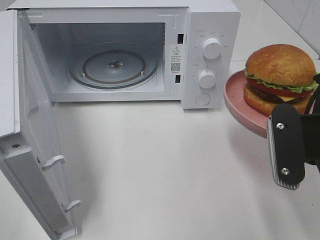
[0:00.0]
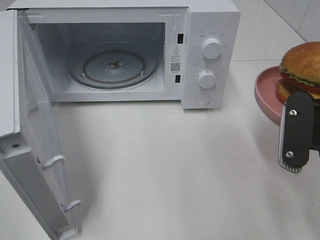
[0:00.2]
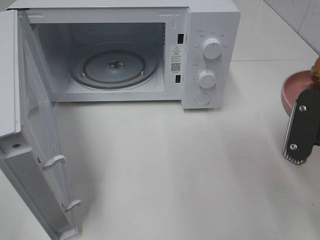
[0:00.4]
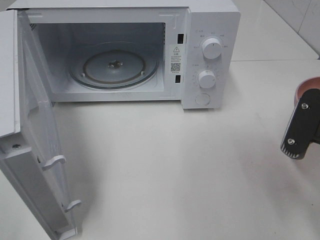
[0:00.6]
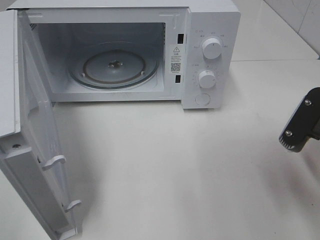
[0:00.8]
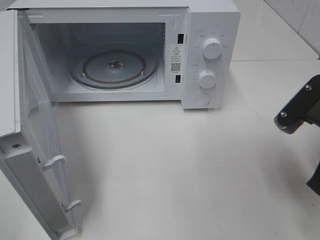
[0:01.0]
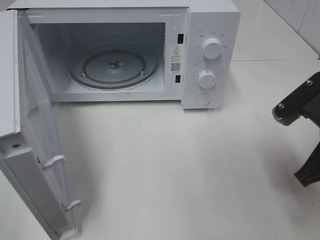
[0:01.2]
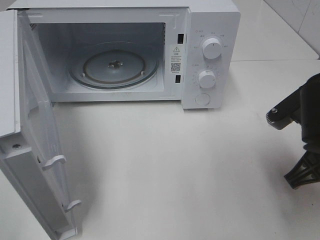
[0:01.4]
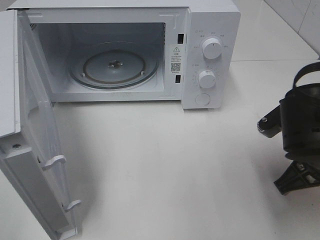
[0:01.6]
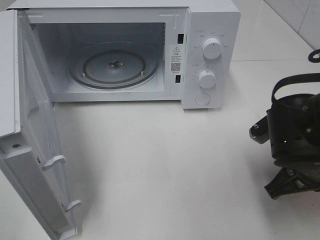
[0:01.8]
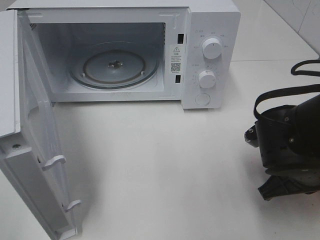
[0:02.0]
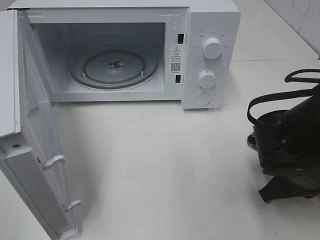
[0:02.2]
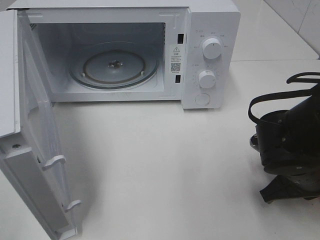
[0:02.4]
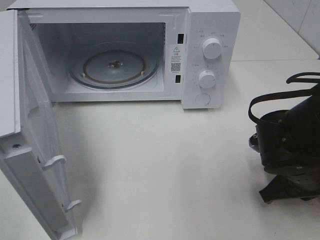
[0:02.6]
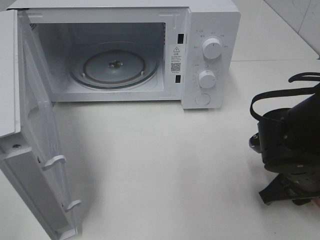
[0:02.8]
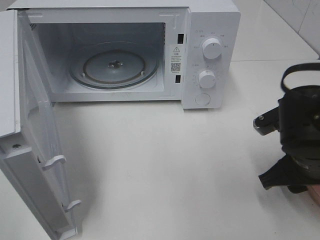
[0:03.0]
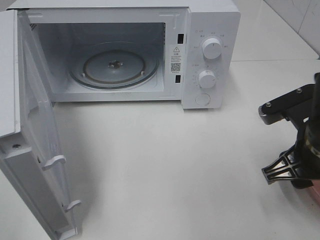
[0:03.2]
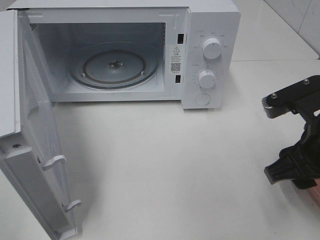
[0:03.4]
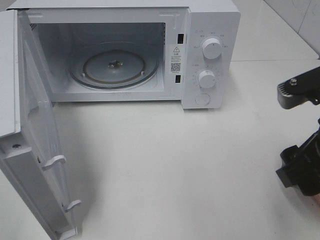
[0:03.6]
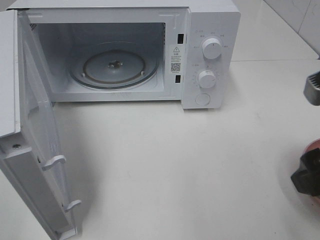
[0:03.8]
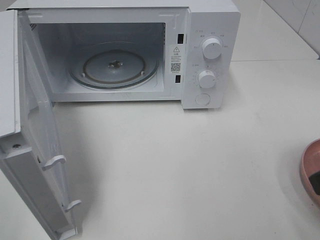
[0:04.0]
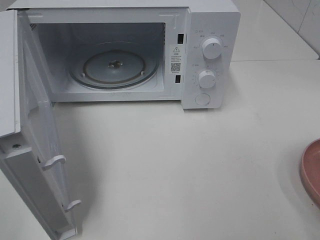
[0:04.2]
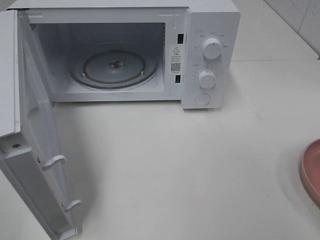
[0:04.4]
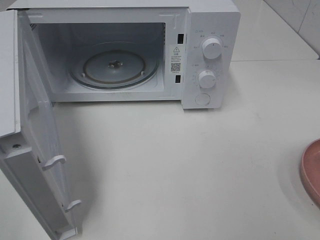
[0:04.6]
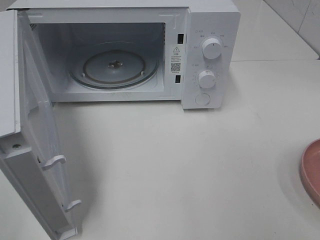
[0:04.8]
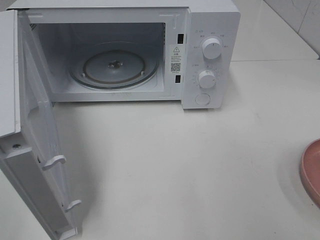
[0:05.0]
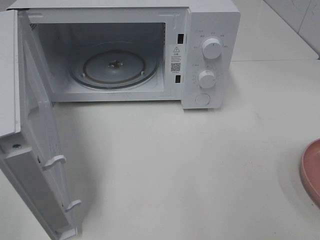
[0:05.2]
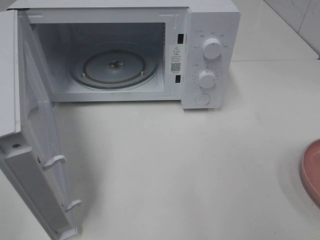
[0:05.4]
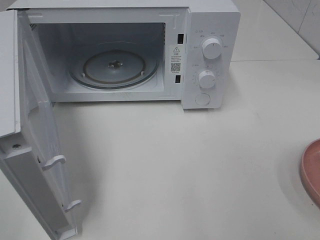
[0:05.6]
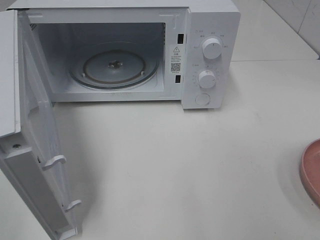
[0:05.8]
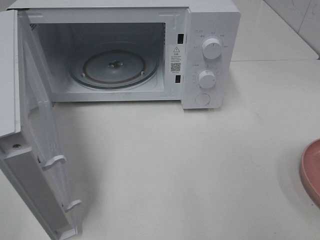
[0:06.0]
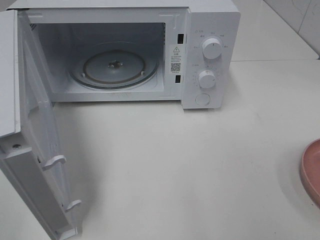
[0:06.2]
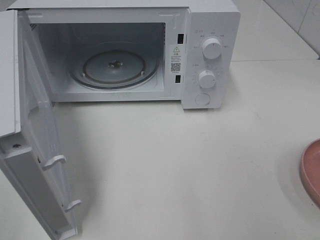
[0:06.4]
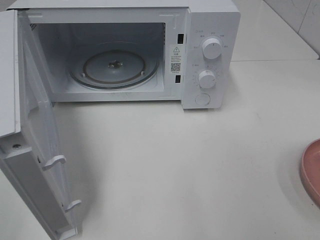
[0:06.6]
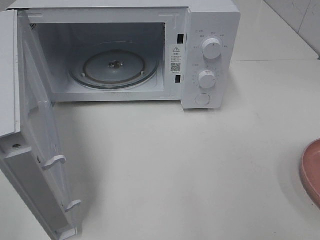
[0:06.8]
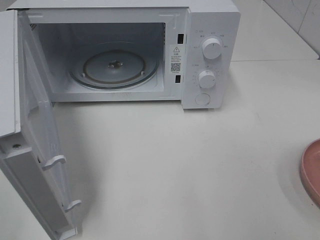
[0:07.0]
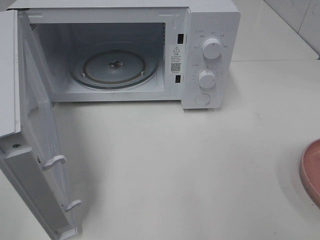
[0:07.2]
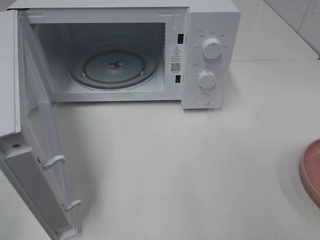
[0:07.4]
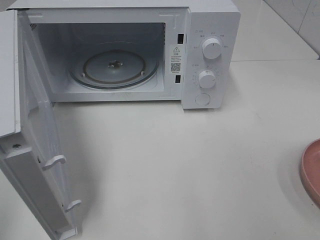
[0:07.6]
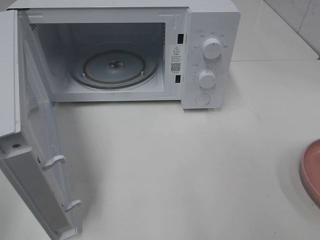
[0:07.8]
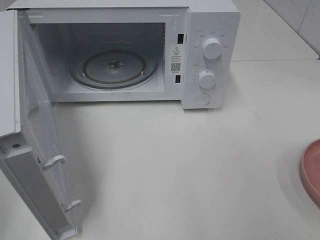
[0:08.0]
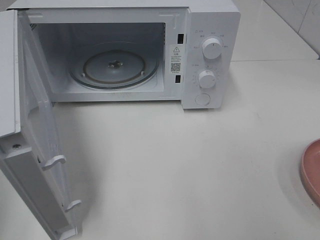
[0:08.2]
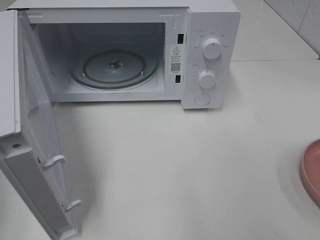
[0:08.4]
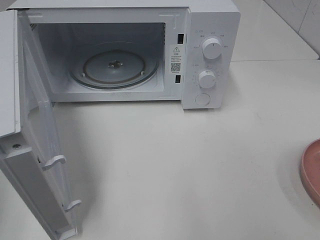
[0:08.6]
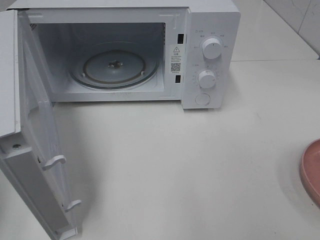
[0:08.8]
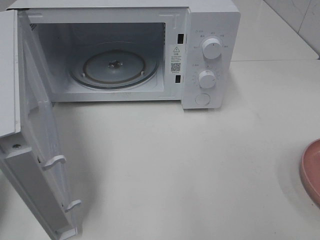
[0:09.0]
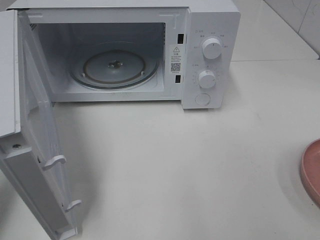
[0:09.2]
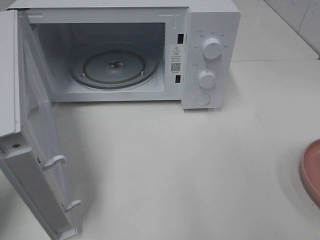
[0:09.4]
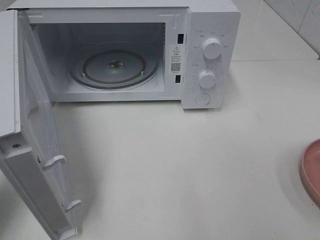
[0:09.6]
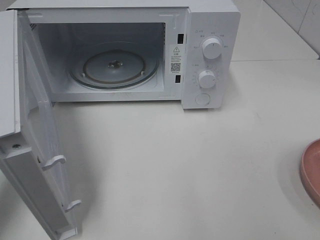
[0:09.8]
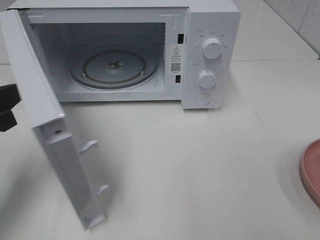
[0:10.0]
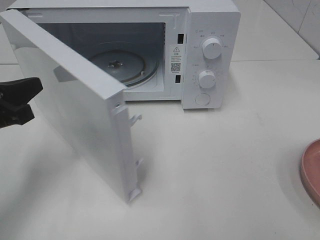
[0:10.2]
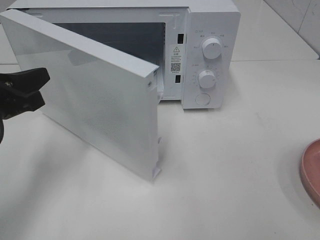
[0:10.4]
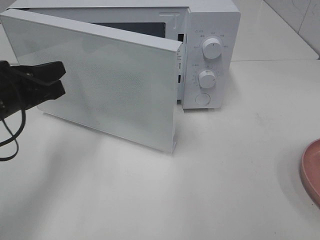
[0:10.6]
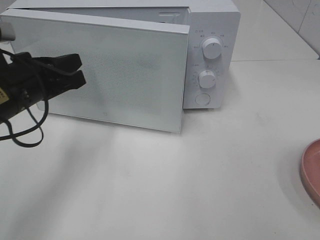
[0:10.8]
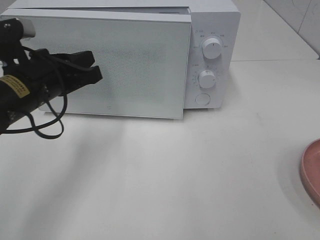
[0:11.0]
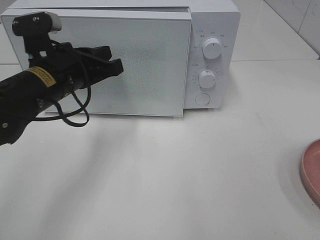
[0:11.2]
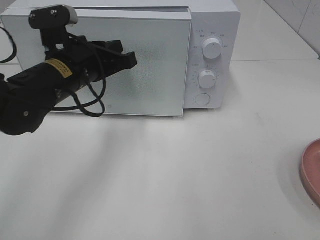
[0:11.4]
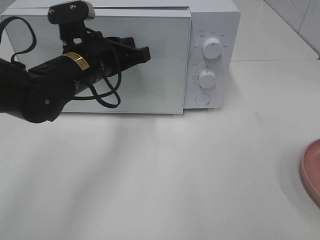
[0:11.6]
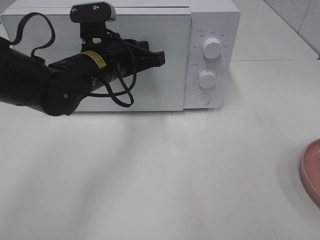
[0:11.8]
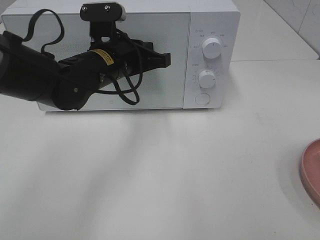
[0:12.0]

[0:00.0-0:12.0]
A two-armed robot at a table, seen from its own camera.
Task of the whole recording: Heat the burger.
Step, 0:00.0 to 0:02.8: Right hand: place the plate on the table.
0:00.0 to 0:01.6: The right gripper goes approximately 5 cm downward.
0:01.6 to 0:03.0: The right gripper opens up.
0:03.0 to 0:04.4: The right gripper heads upward, backward and to the right, covering some 20 cm.
0:09.0 to 0:10.4: The left gripper is displaced forward and to the right by roughly 10 cm.
0:10.4 to 0:12.0: The left gripper goes approximately 20 cm to the right and forward.

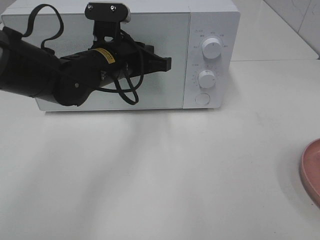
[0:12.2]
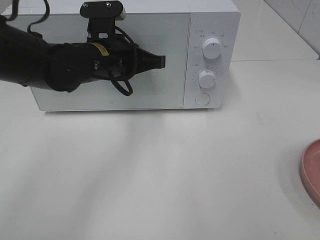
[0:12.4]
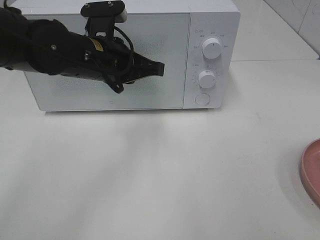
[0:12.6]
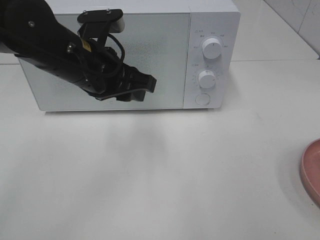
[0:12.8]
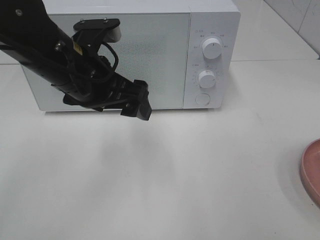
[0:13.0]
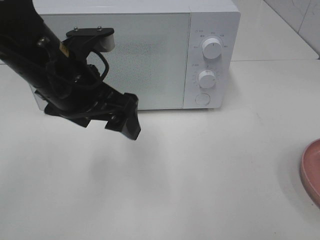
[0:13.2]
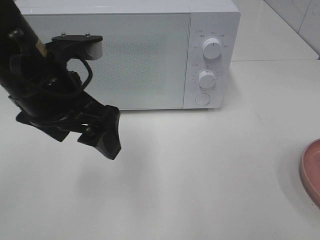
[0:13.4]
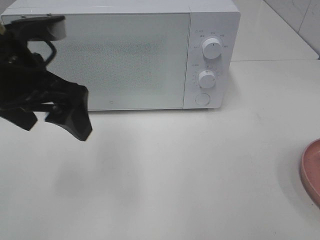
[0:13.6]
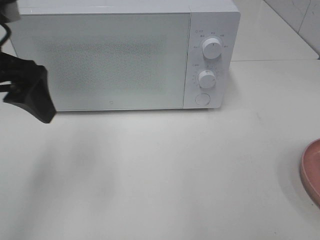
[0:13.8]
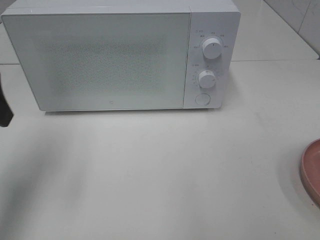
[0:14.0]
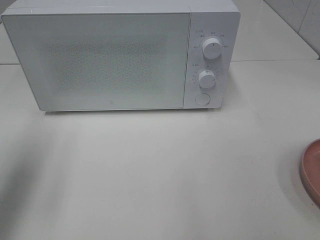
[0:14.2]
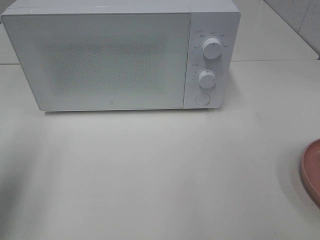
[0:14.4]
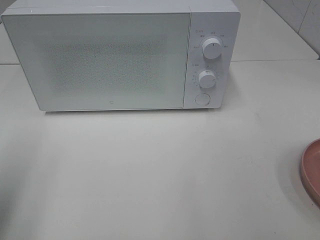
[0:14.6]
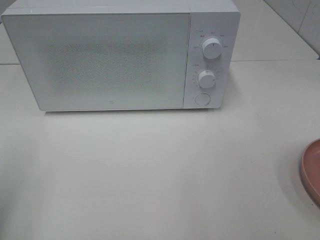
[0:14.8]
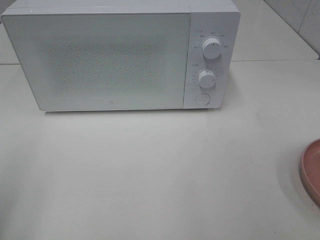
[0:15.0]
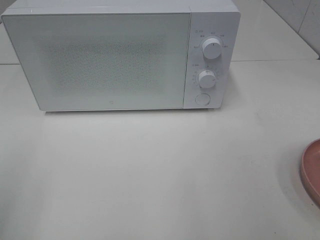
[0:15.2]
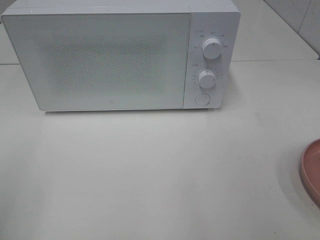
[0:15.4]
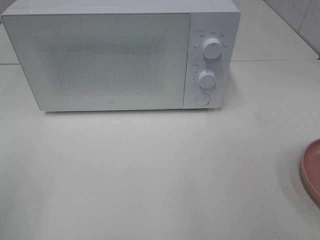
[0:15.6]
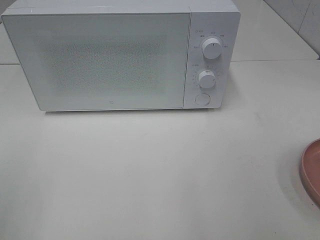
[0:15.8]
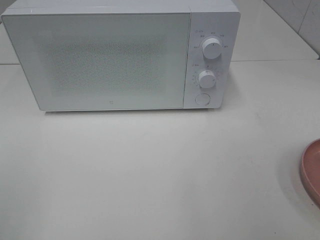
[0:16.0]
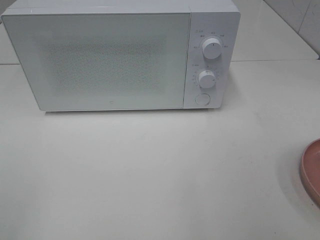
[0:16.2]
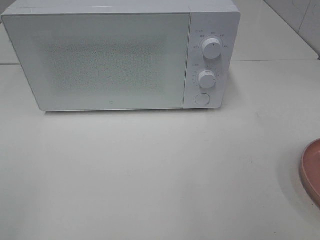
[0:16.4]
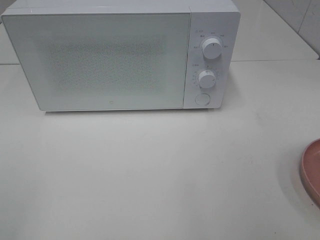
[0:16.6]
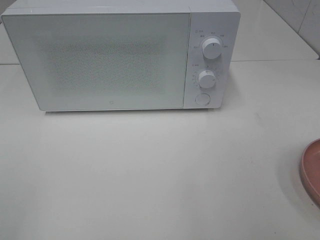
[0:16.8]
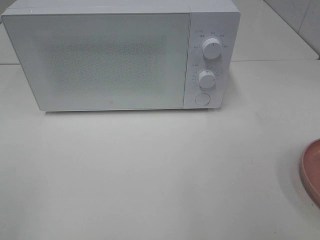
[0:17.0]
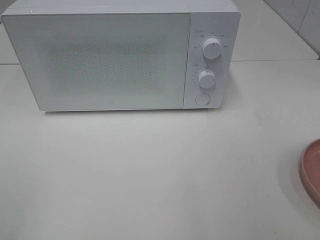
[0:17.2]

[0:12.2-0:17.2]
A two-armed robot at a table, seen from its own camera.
Task of the whole recording: Heat the burger.
0:12.2 to 0:13.8: The left gripper is displaced to the left, upward and backward by about 20 cm, and opens.
0:13.8 to 0:15.6: The left gripper goes approximately 20 cm backward and to the left.

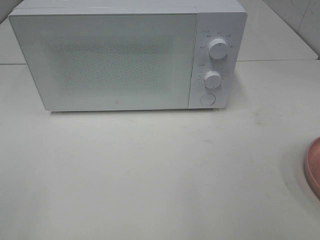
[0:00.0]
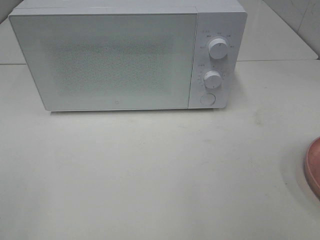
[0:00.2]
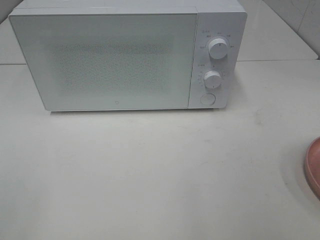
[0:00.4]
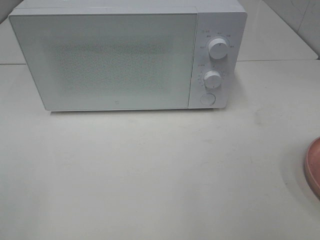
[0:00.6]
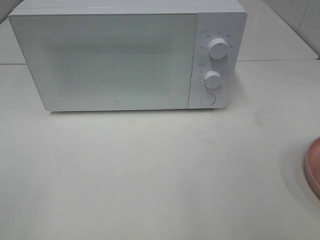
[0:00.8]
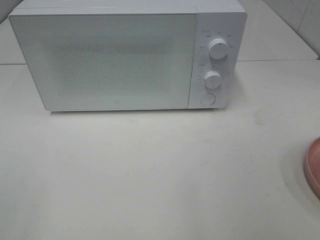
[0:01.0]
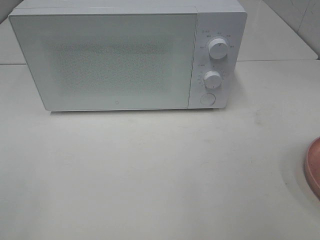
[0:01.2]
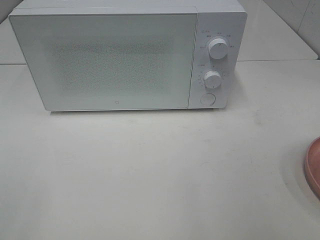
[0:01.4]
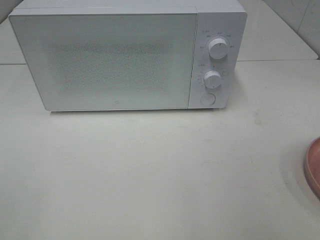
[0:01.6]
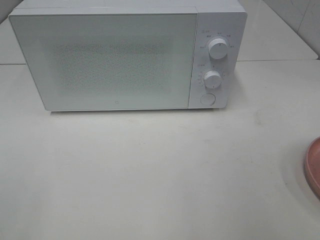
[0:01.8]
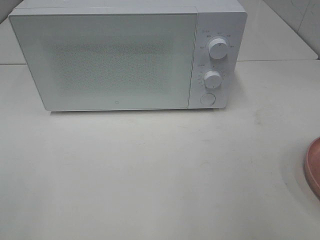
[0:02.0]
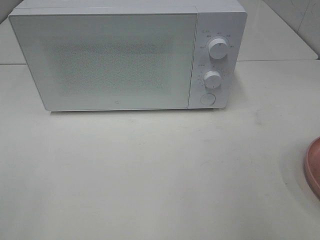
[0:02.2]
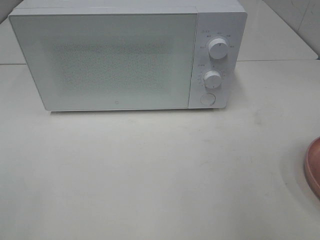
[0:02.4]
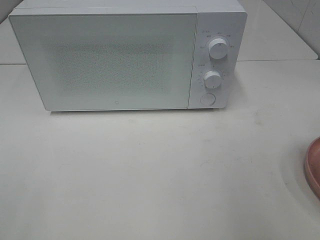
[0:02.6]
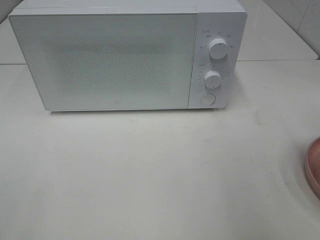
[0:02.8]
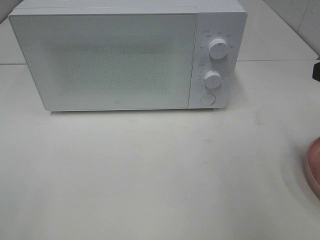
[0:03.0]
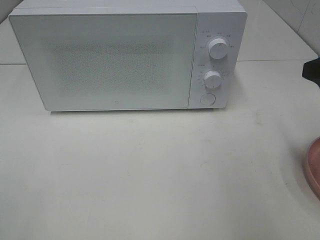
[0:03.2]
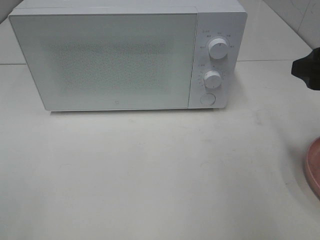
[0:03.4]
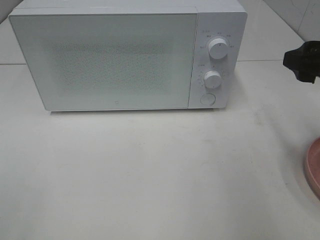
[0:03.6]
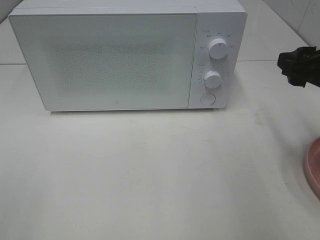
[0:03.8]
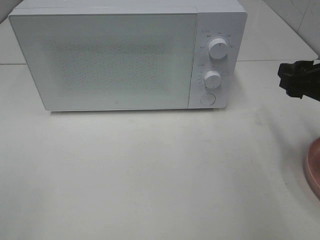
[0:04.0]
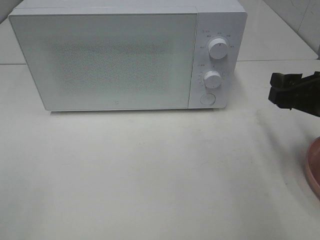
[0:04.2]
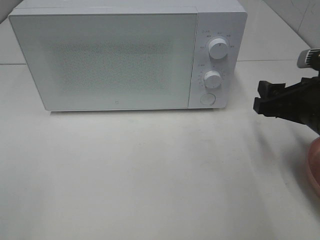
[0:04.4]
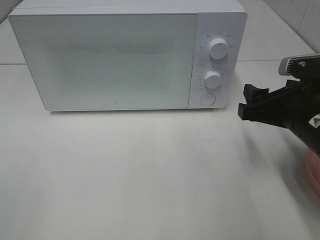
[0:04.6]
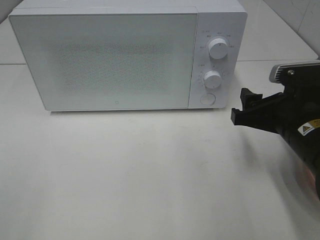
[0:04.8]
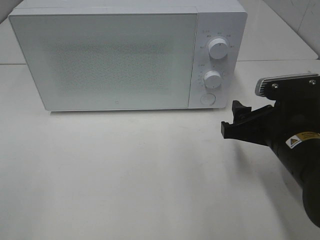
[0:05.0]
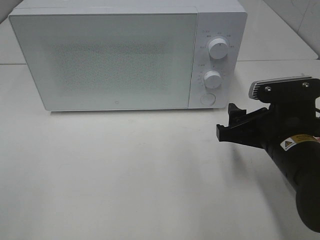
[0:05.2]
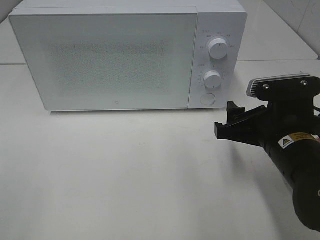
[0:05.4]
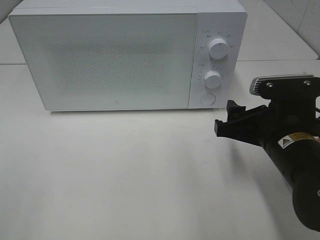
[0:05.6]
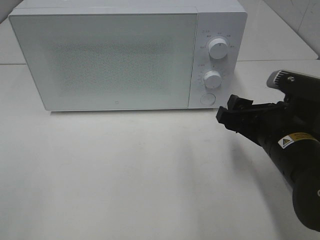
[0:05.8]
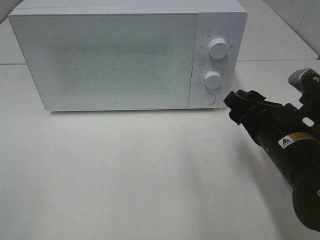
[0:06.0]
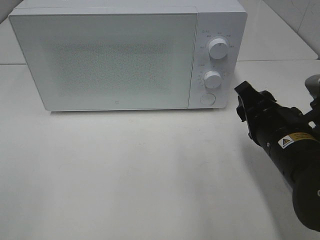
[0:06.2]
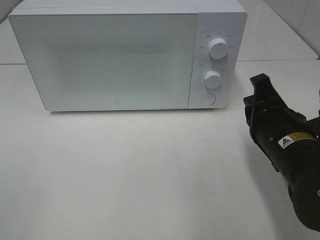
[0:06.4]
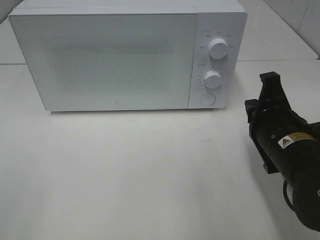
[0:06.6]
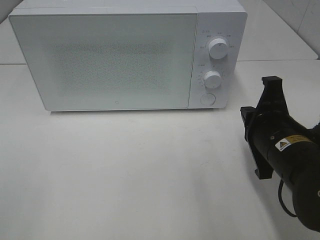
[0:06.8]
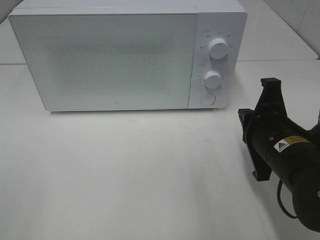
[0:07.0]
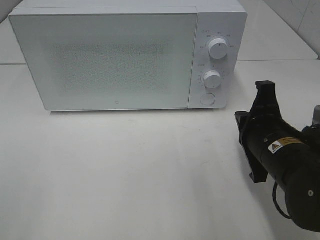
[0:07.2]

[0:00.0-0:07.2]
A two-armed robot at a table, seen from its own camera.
Task of the whole recording: Heat the burger.
0:02.8 to 0:04.4: The right gripper goes about 15 cm downward and forward.
0:04.4 to 0:05.8: The right gripper heads to the left, covering about 5 cm.
0:05.8 to 0:07.2: The right gripper closes.
